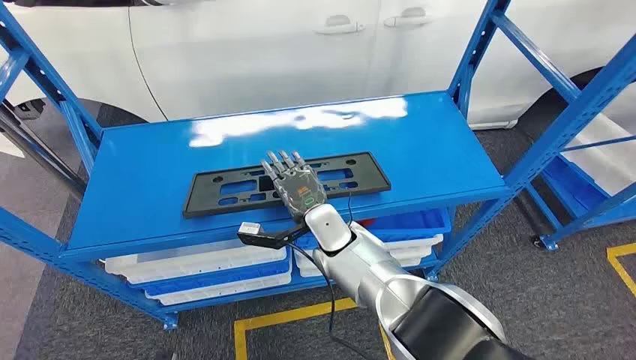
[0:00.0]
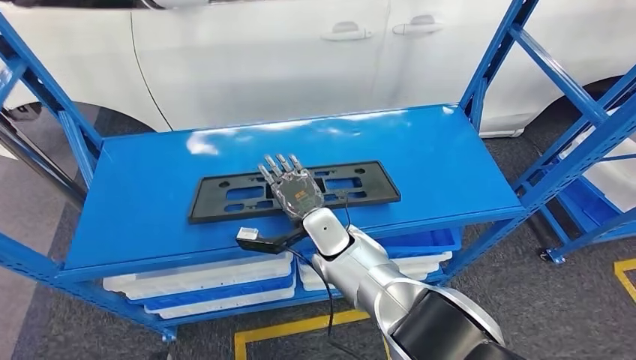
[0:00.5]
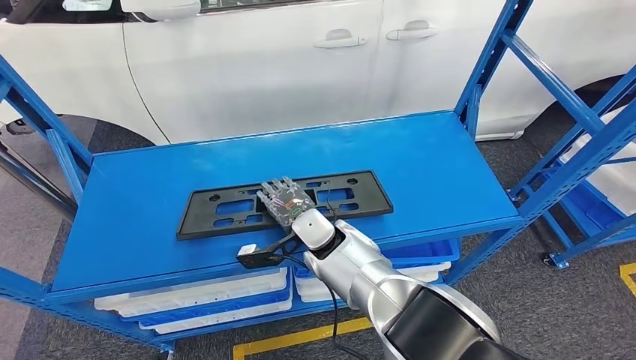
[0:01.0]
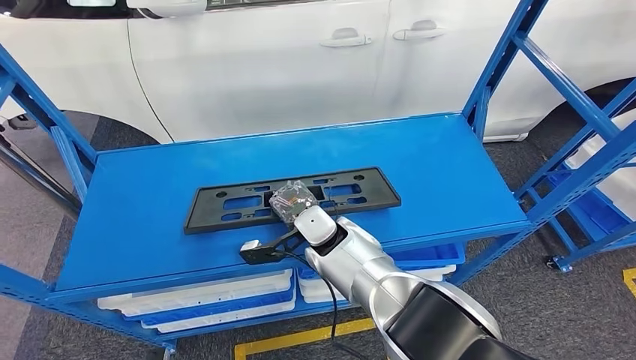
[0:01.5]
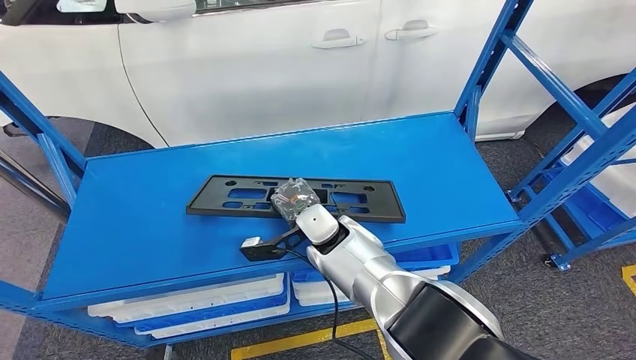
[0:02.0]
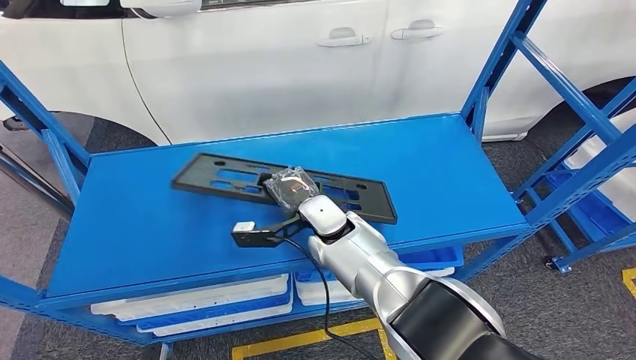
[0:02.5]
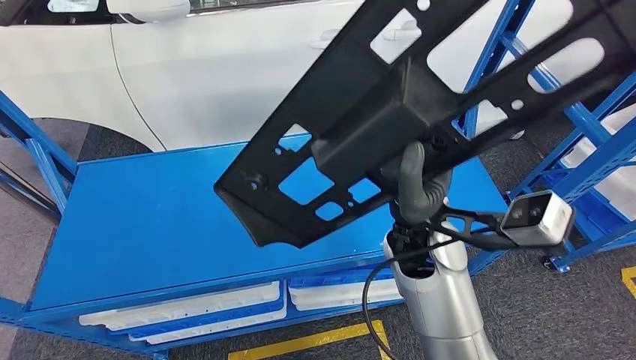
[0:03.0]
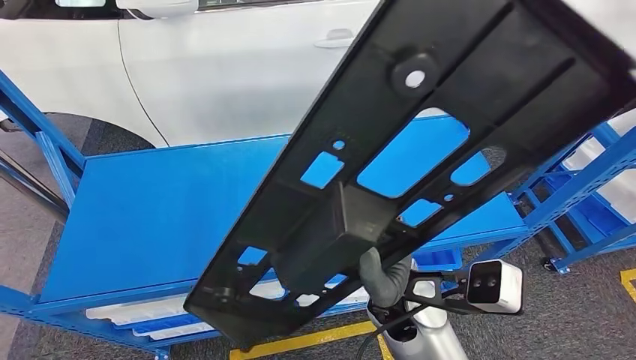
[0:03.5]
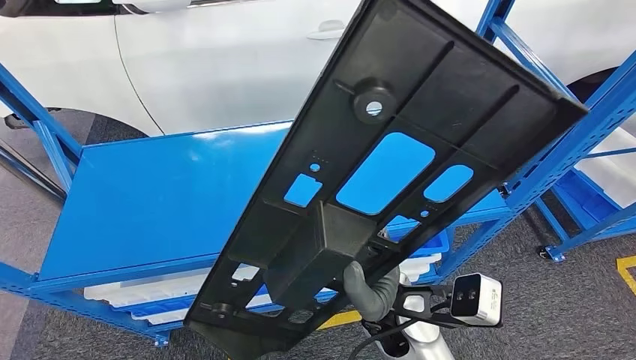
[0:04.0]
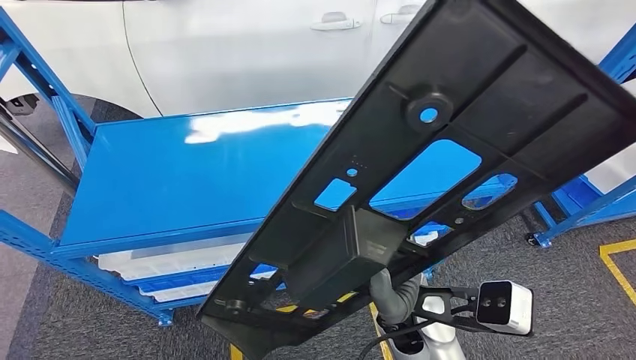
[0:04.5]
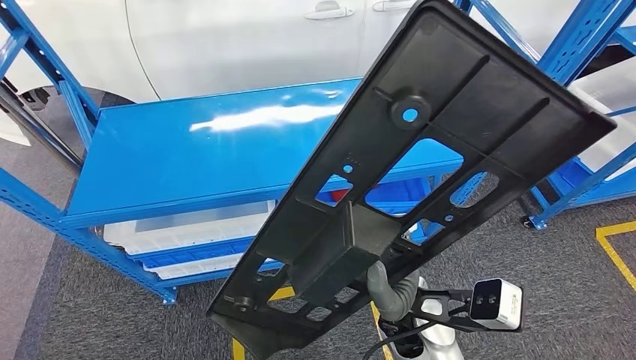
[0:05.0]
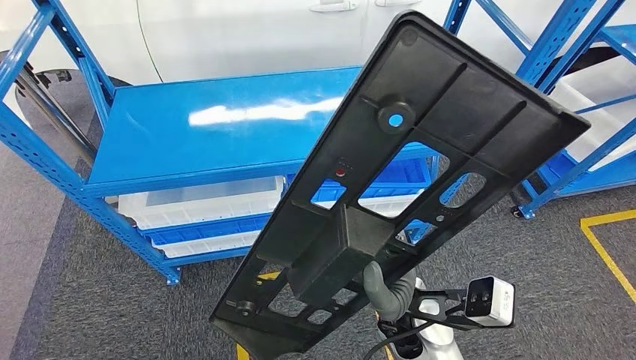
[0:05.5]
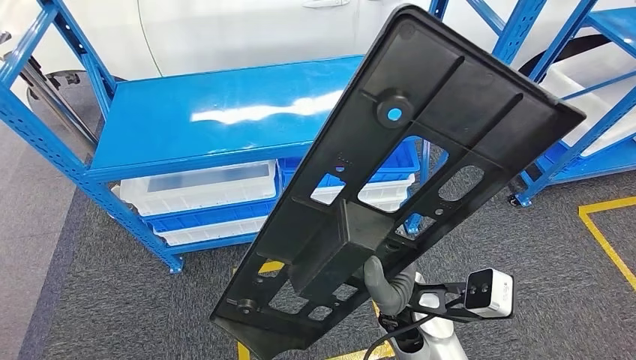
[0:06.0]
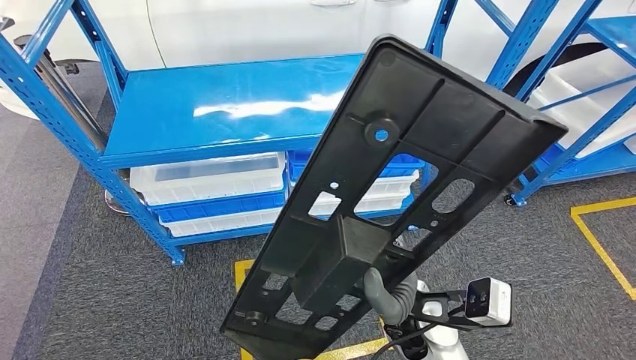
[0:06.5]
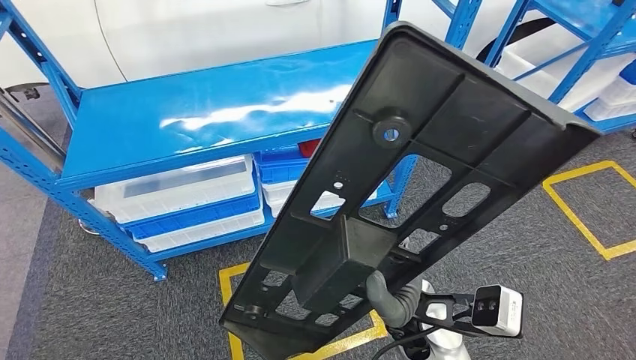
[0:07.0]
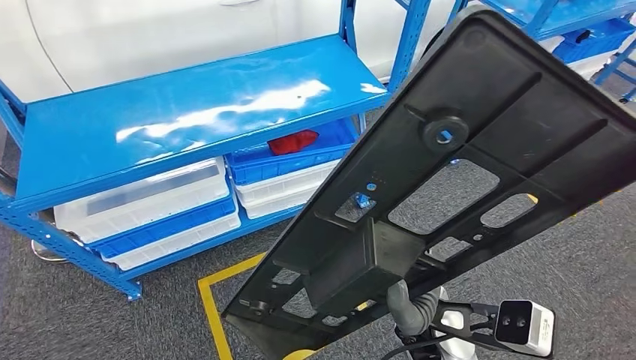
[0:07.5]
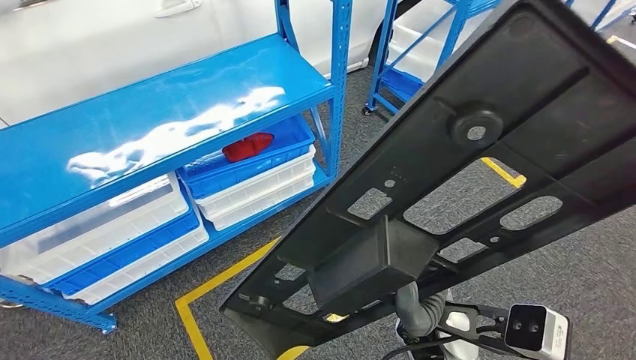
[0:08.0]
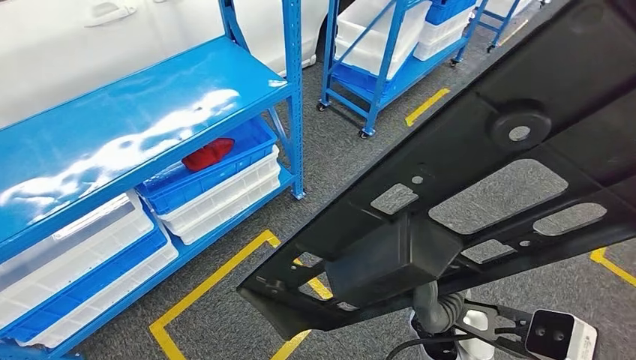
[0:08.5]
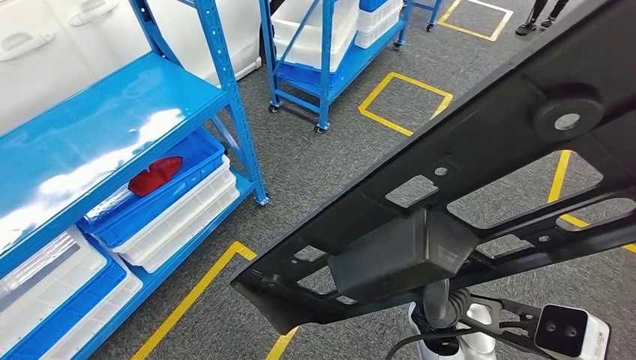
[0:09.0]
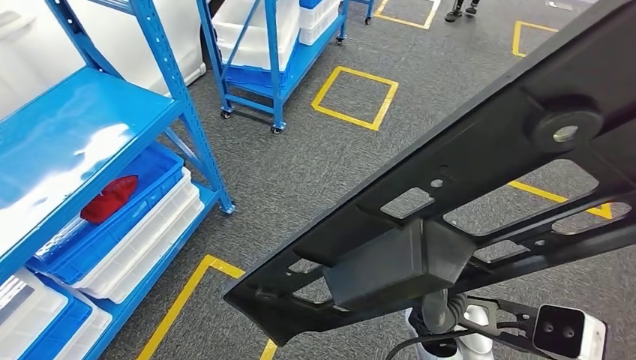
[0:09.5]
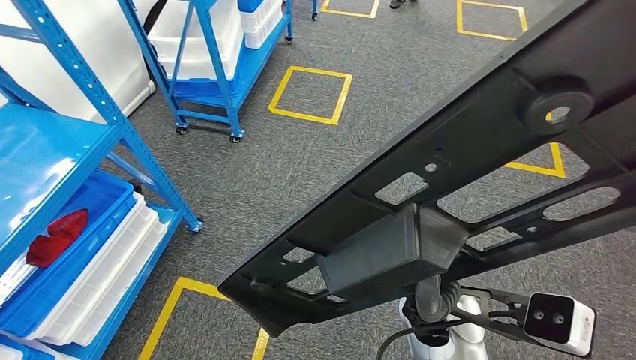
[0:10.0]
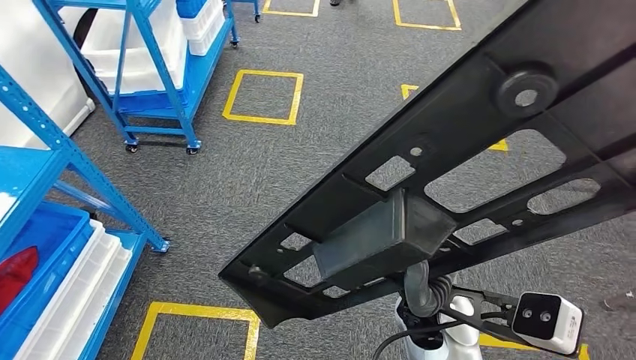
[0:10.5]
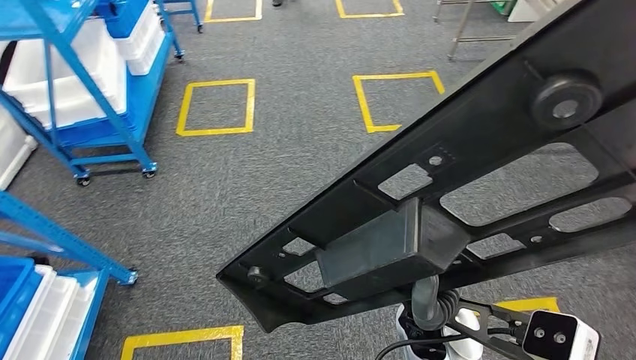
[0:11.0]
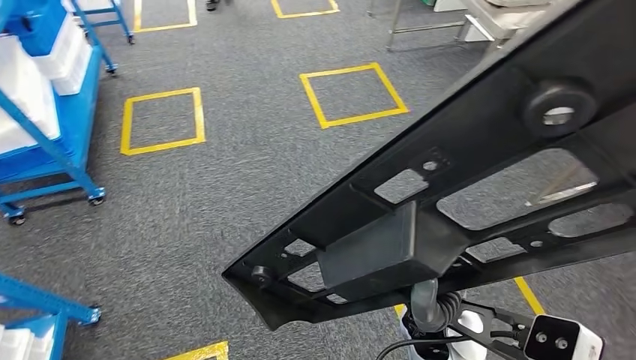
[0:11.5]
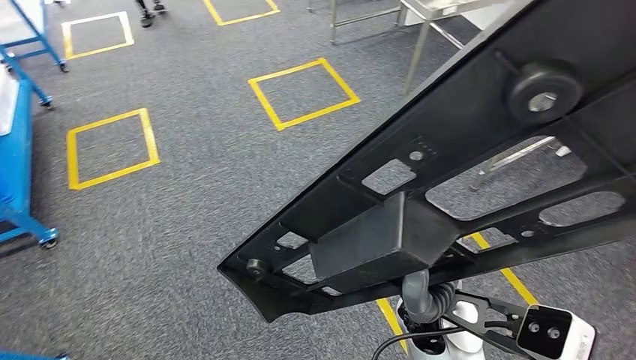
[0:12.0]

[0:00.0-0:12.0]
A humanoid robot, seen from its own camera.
Step, 0:00.0 to 0:04.5: Pick up the large material from the shelf.

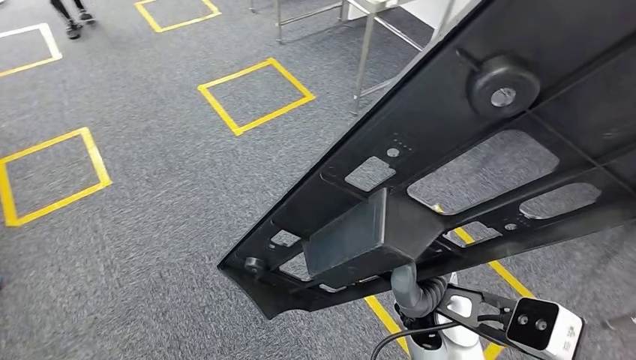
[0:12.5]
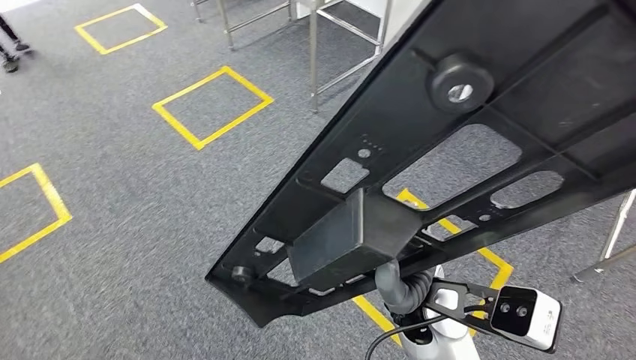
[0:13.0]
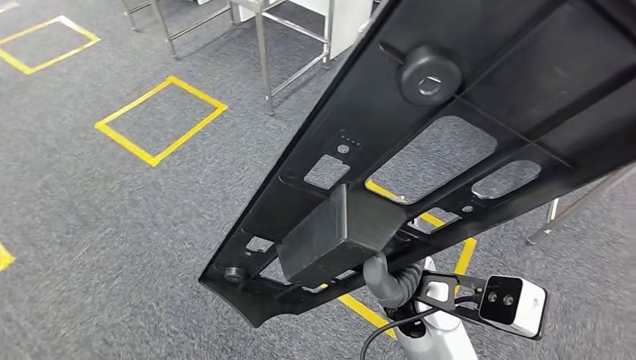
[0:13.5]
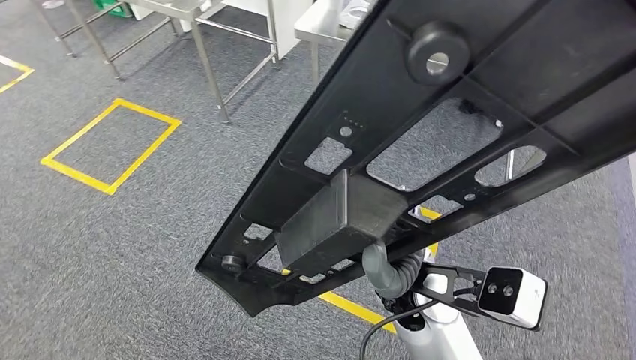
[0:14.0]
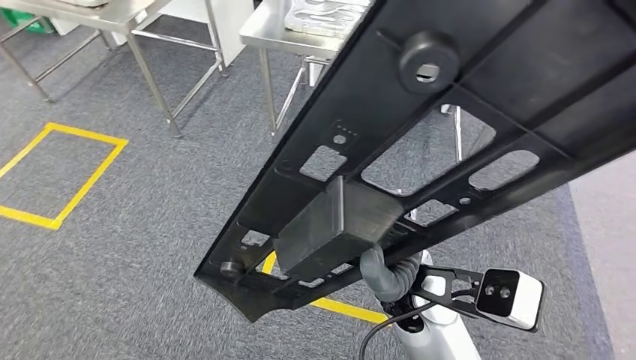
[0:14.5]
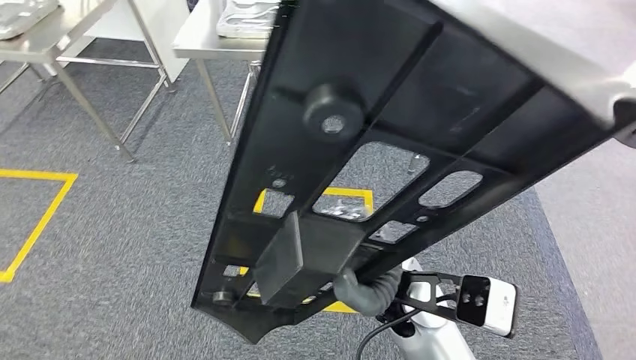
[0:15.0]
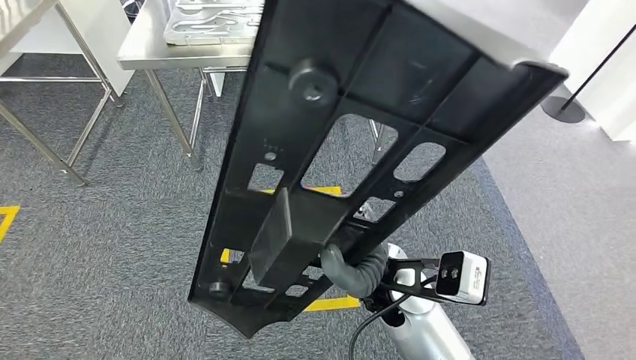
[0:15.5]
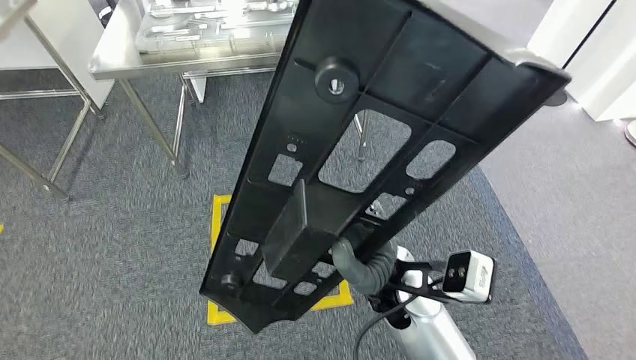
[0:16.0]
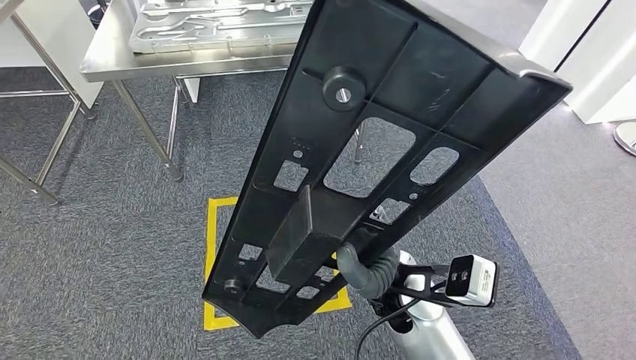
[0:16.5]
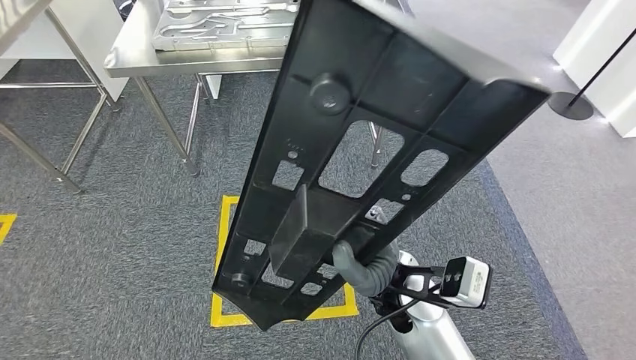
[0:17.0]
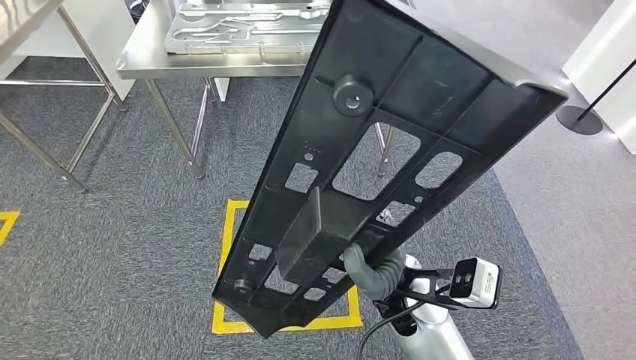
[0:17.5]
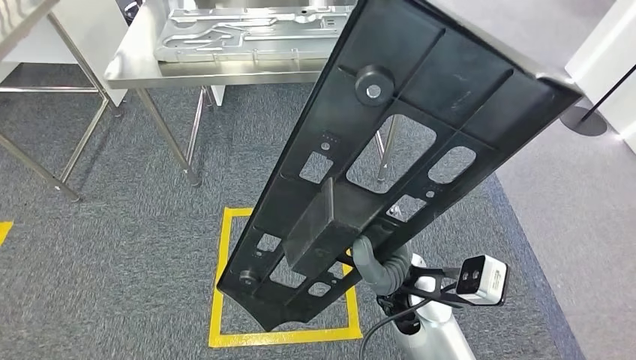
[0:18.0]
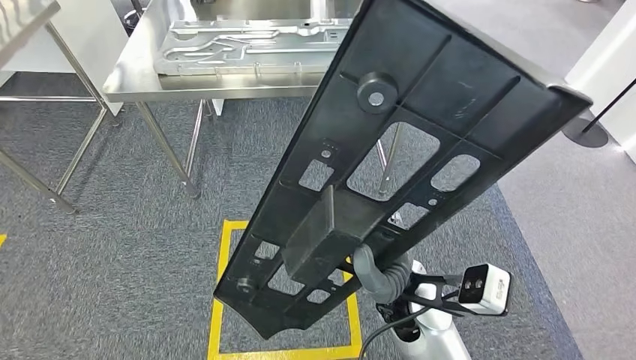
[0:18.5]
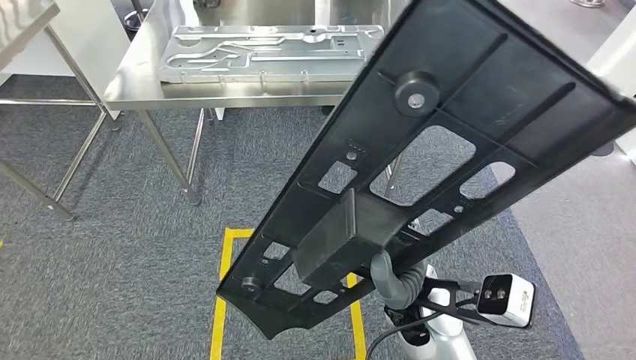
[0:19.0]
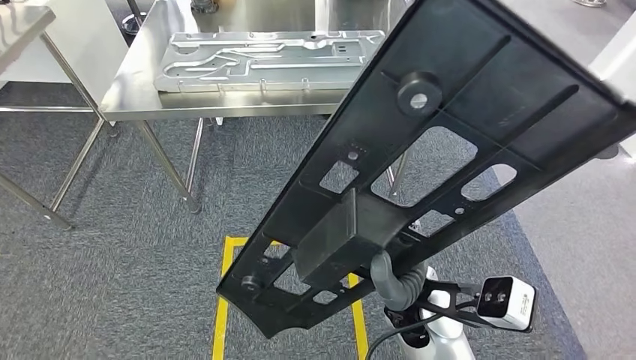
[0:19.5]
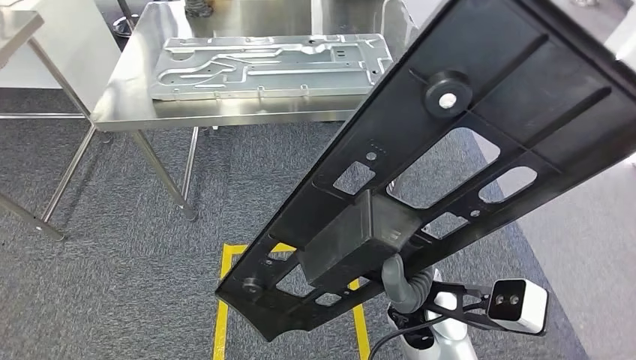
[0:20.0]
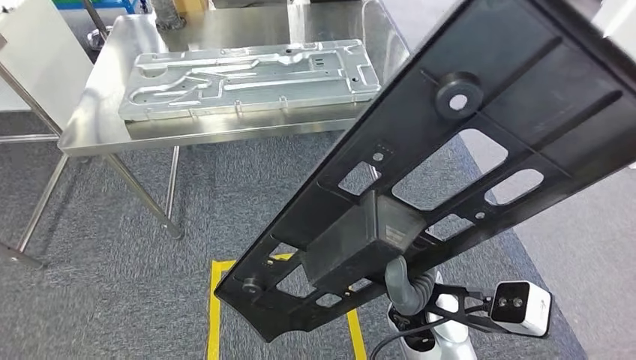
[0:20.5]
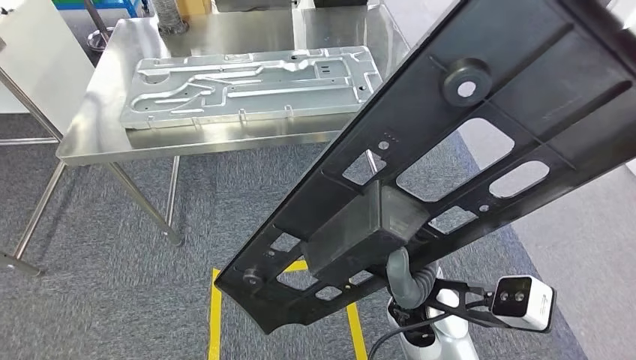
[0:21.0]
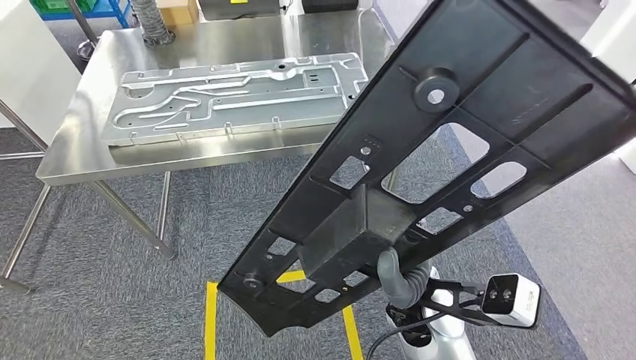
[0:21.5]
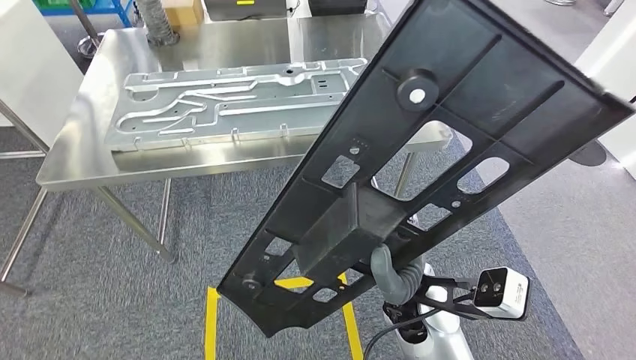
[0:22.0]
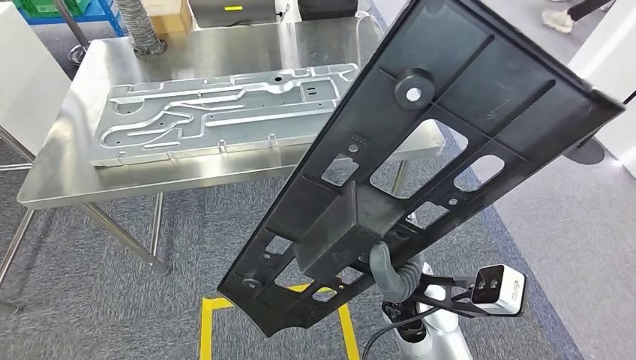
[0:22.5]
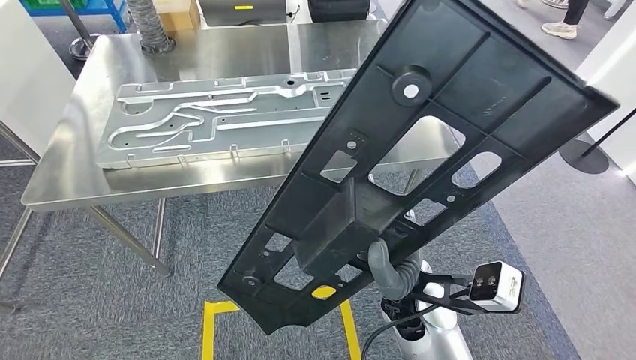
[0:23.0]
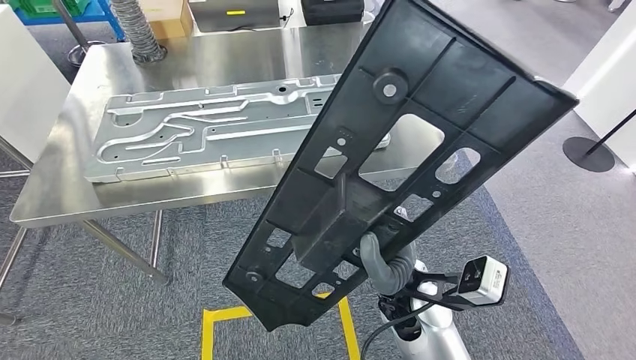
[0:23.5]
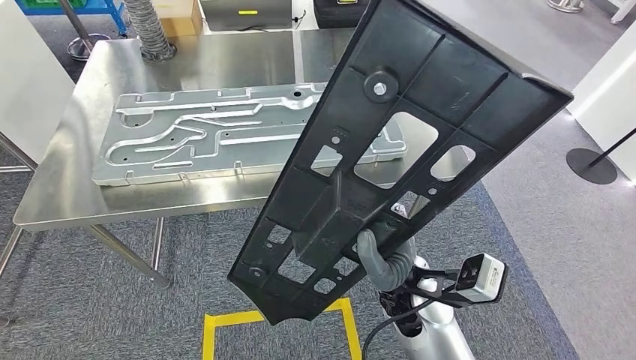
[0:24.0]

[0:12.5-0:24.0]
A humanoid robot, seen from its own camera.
Step, 0:12.5 to 0:21.5: Move the large material to the workbench.
